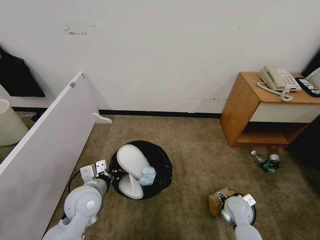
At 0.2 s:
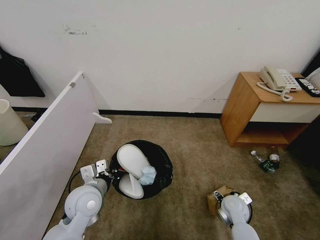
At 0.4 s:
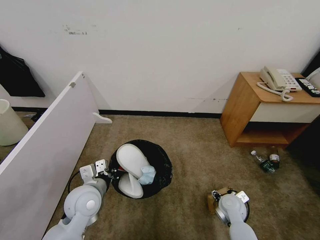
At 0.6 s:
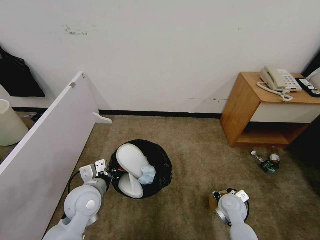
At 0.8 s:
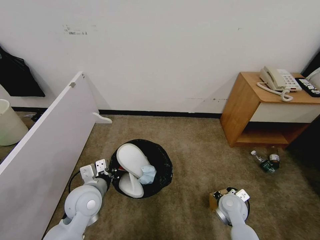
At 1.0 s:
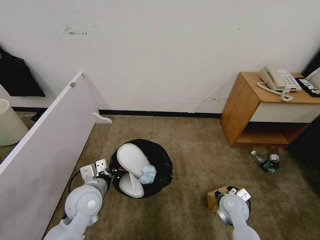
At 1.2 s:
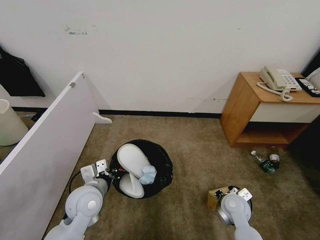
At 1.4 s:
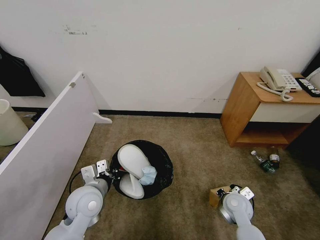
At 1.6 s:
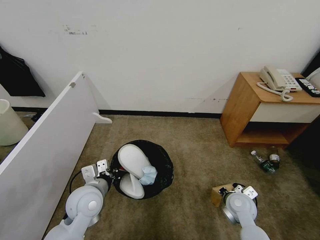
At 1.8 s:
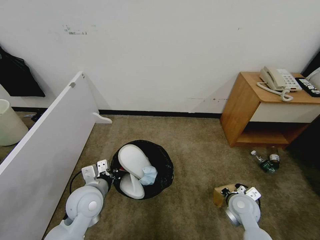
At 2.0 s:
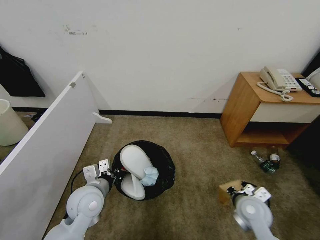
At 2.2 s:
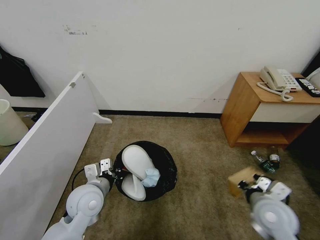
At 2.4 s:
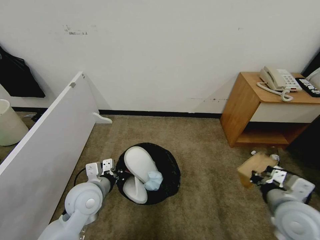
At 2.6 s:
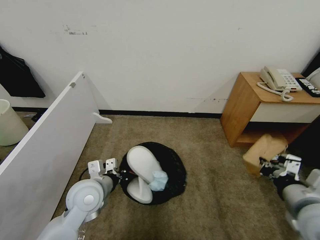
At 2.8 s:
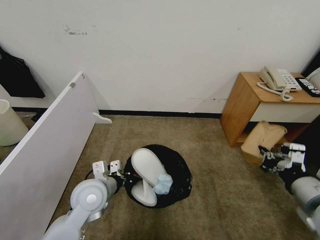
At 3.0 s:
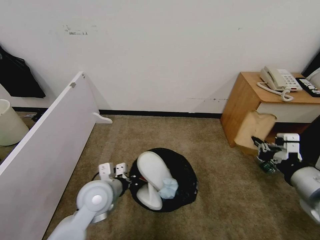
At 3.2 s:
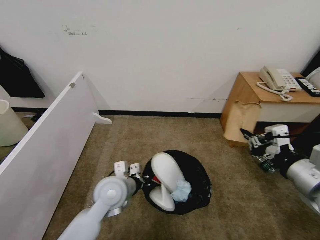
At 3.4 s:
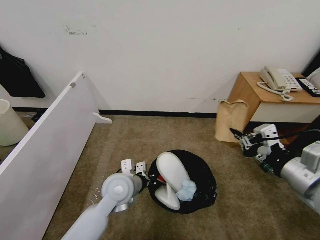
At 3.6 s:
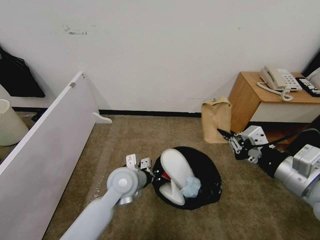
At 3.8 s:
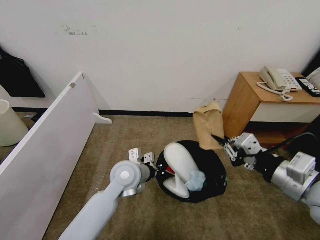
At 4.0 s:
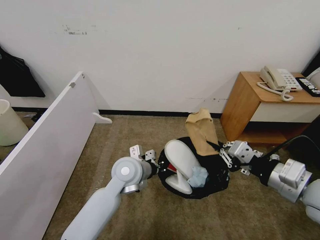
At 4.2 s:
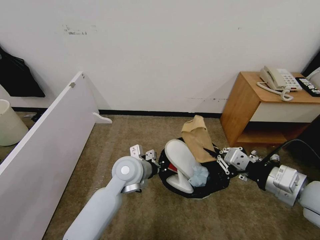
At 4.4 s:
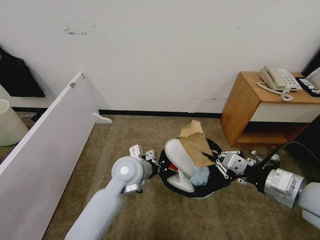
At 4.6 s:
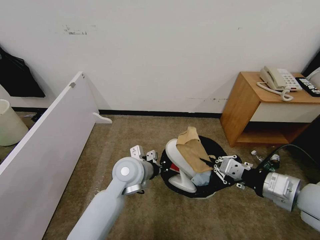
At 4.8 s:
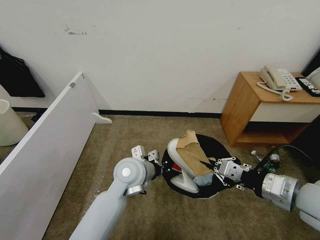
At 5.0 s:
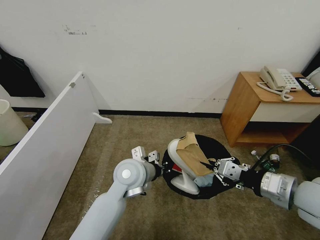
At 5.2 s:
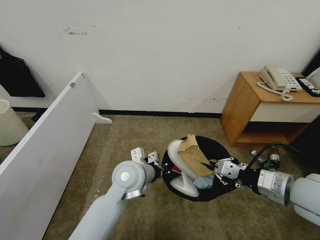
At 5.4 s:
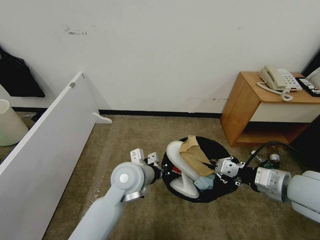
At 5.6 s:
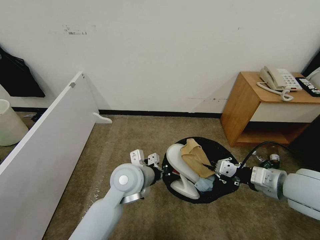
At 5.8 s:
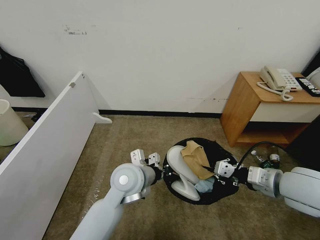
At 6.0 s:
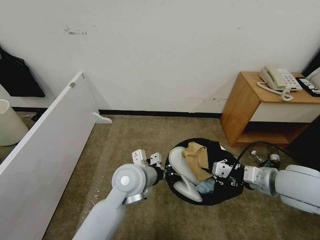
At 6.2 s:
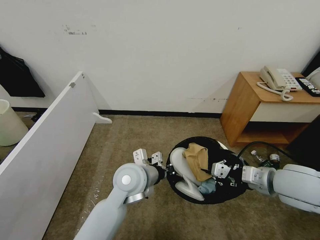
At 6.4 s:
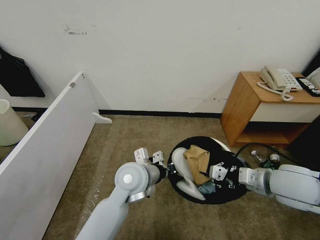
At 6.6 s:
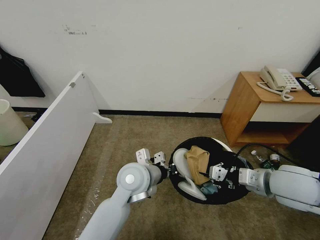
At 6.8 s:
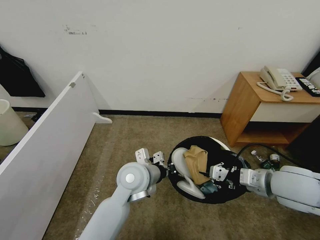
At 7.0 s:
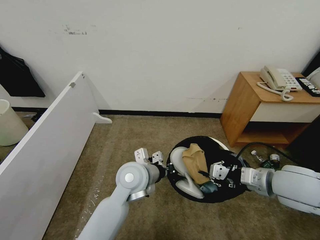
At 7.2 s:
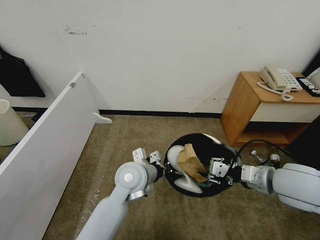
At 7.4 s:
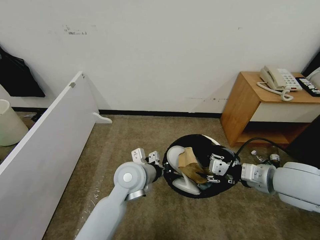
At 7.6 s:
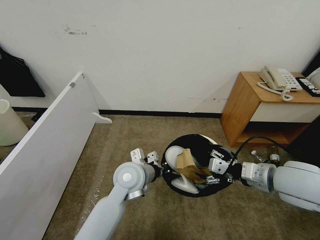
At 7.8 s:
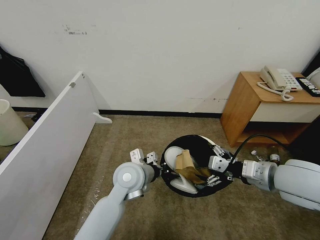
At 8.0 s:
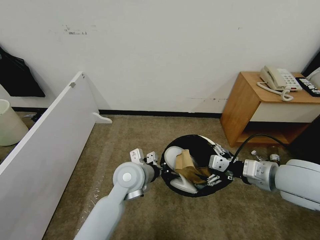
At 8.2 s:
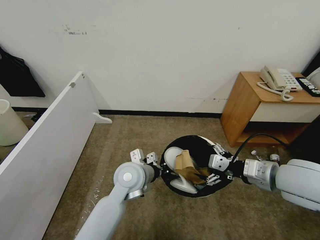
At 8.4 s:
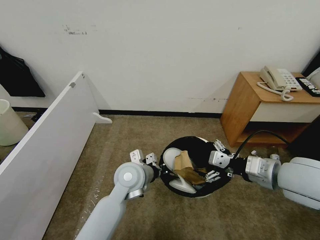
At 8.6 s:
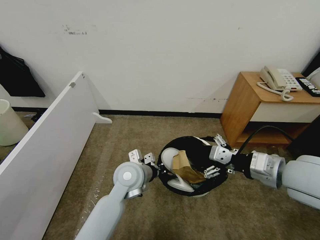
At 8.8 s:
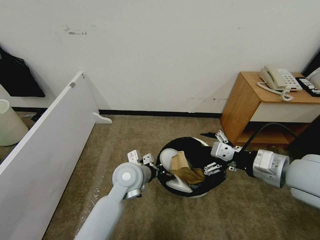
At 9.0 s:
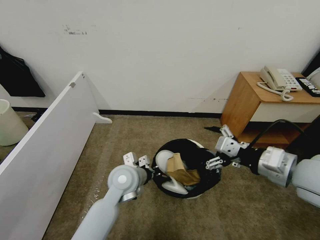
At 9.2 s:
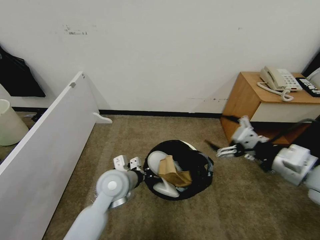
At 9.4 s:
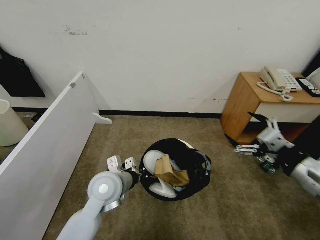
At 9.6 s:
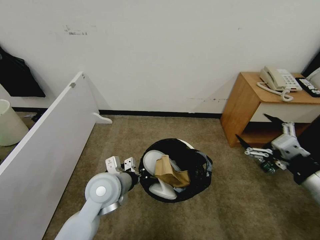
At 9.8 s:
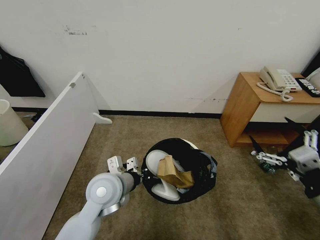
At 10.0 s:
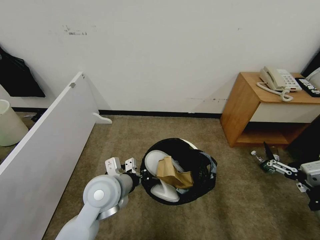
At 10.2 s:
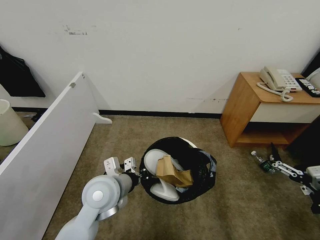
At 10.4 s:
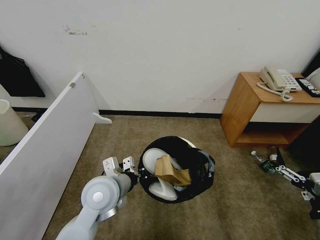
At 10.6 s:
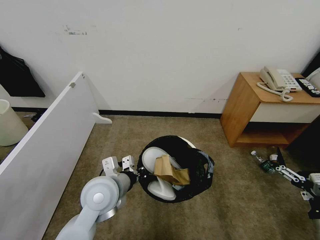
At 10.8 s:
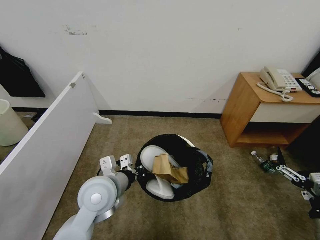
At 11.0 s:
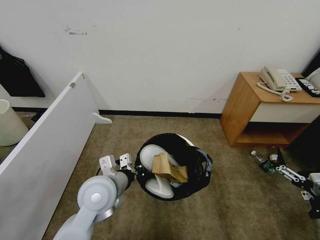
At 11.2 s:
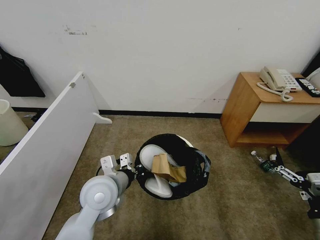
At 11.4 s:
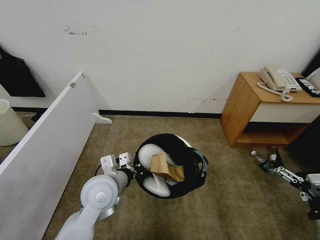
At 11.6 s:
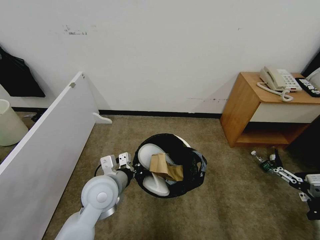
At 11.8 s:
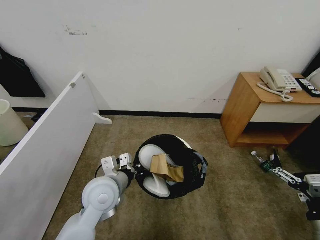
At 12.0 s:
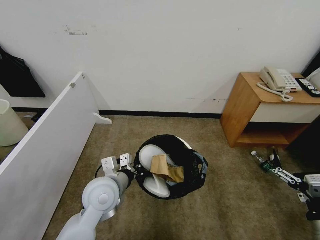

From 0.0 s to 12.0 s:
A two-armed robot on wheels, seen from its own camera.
Task of the whole recording: Pick up the trash bin, then pick up the garbage from the floor and place it into the trash bin.
From 0.0 s to 1.6 s: The right gripper heads upward, covering some 5 cm, and closes up.
From 1.6 s to 3.0 s: The right gripper travels upward by approximately 25 cm.
From 3.0 s to 4.4 s: The left gripper moves to the right and forward, some 10 cm.
From 4.4 s to 6.0 s: The right gripper shifts some 5 cm forward.
From 6.0 s to 7.6 s: The right gripper opens its fingers.
From 7.6 s to 9.0 s: The right gripper is displaced upward by approximately 5 cm.
From 9.0 s to 10.4 s: The right gripper goes approximately 20 cm downward, backward and to the right; the left gripper goes about 5 cm backward.
From 10.4 s to 12.0 s: The grippers move only a little.

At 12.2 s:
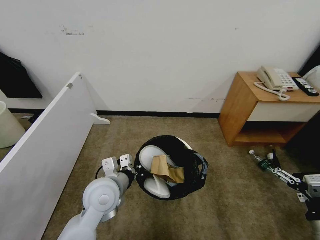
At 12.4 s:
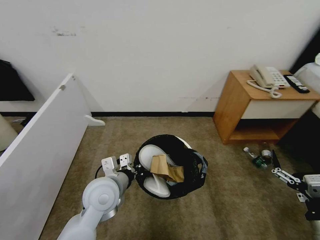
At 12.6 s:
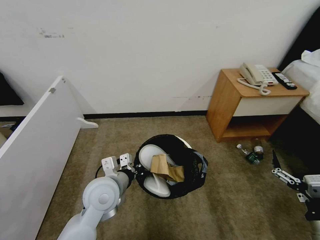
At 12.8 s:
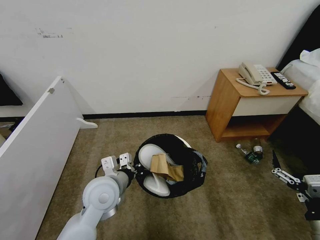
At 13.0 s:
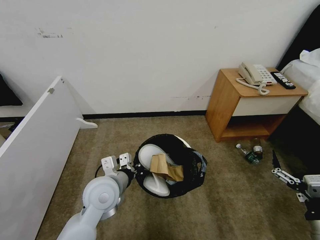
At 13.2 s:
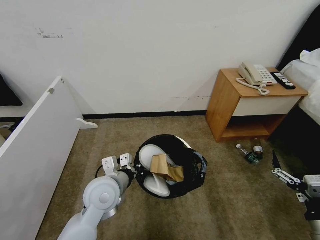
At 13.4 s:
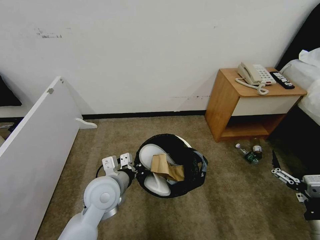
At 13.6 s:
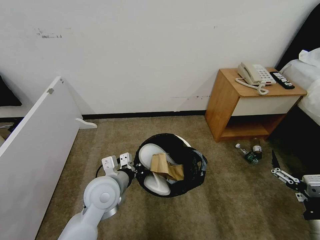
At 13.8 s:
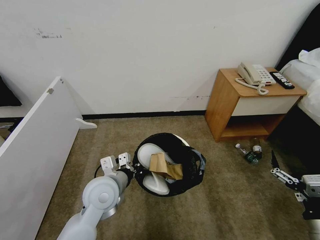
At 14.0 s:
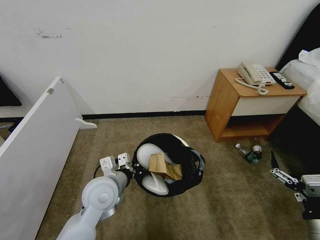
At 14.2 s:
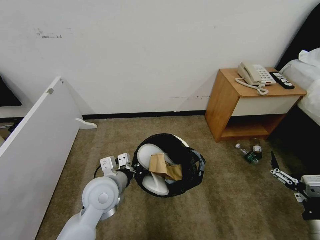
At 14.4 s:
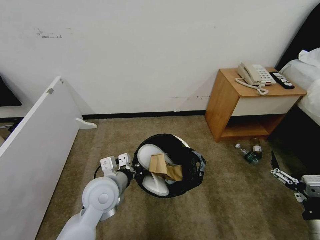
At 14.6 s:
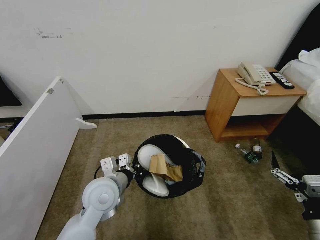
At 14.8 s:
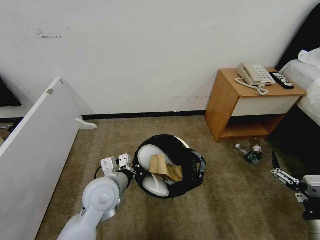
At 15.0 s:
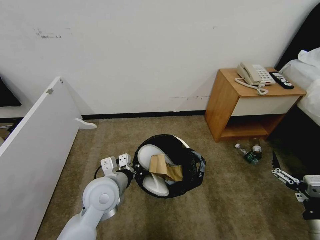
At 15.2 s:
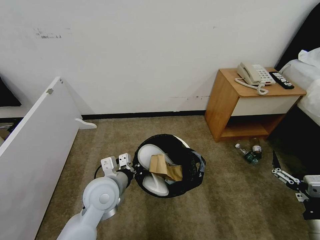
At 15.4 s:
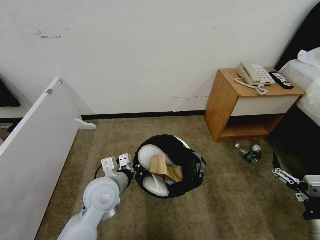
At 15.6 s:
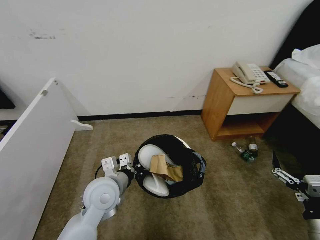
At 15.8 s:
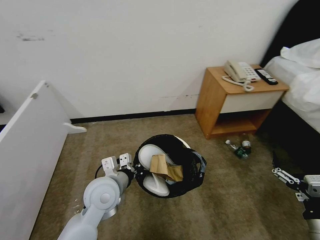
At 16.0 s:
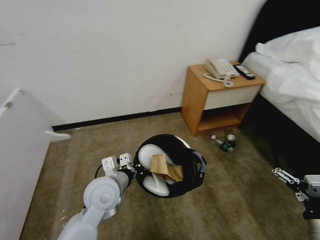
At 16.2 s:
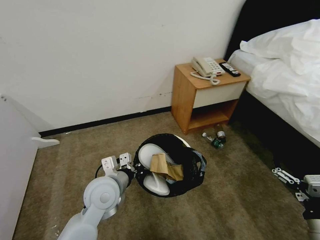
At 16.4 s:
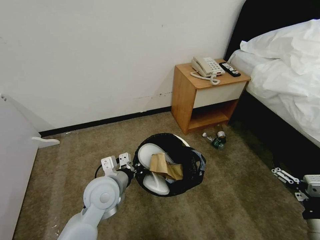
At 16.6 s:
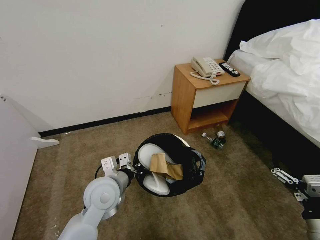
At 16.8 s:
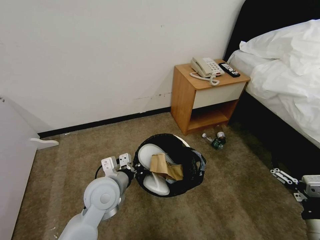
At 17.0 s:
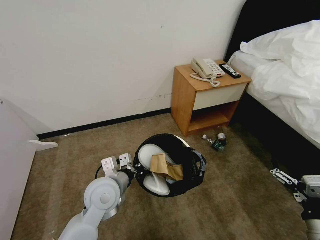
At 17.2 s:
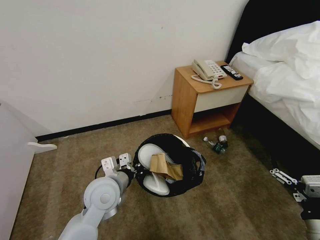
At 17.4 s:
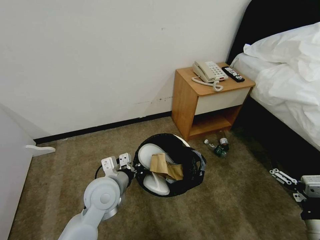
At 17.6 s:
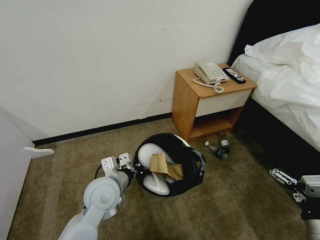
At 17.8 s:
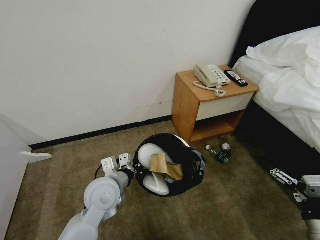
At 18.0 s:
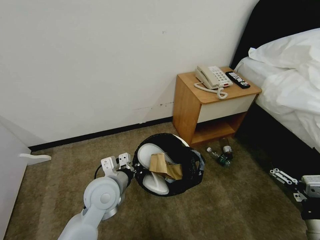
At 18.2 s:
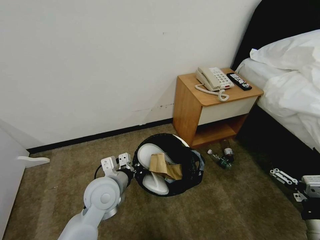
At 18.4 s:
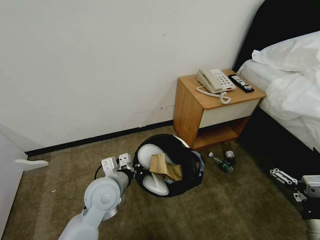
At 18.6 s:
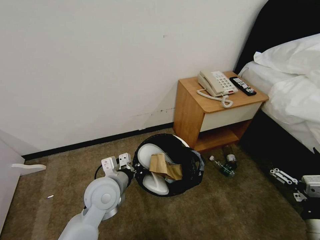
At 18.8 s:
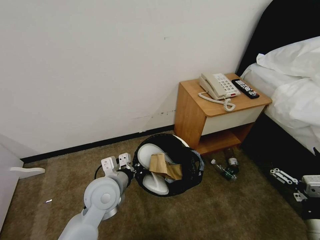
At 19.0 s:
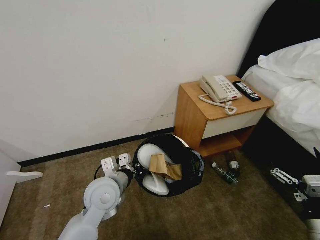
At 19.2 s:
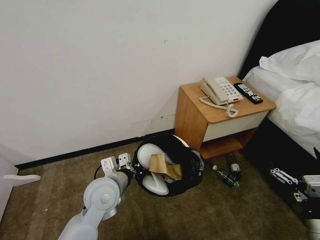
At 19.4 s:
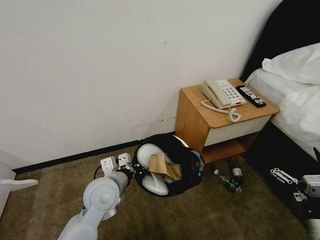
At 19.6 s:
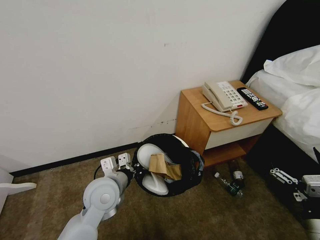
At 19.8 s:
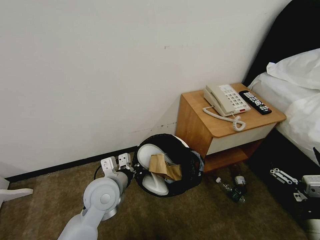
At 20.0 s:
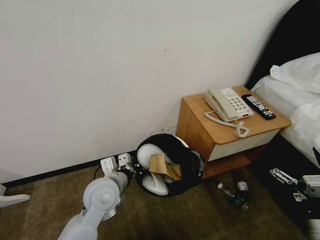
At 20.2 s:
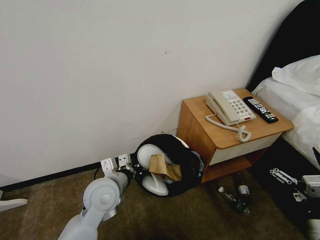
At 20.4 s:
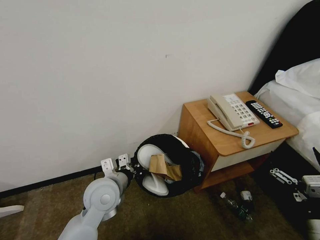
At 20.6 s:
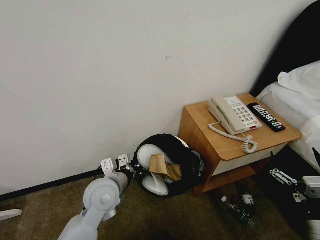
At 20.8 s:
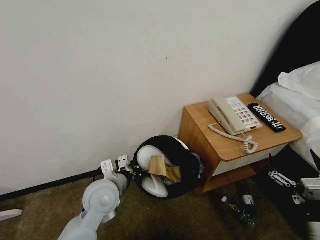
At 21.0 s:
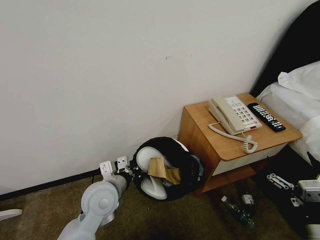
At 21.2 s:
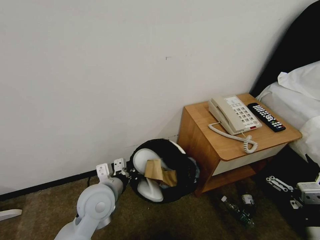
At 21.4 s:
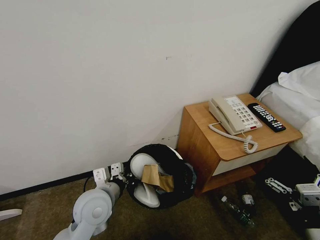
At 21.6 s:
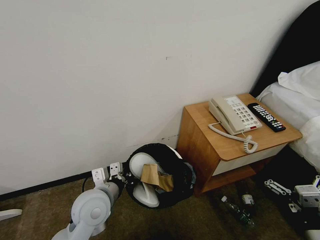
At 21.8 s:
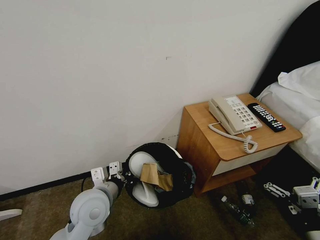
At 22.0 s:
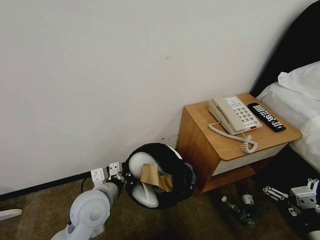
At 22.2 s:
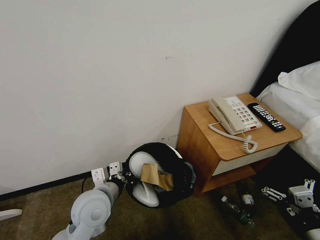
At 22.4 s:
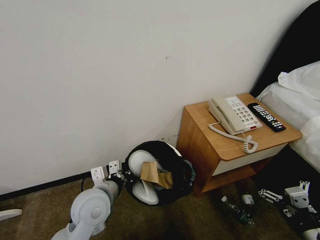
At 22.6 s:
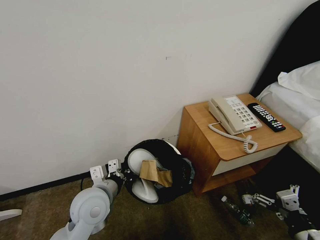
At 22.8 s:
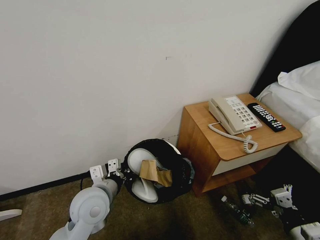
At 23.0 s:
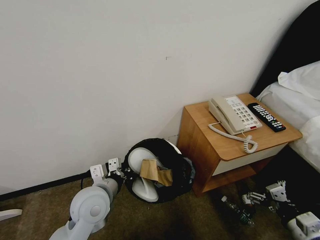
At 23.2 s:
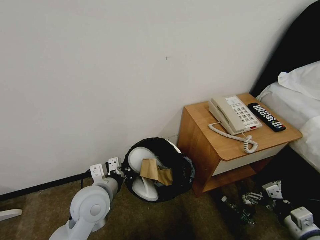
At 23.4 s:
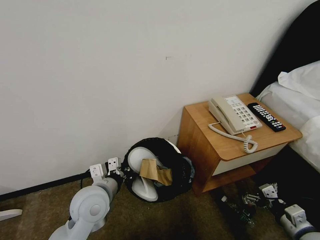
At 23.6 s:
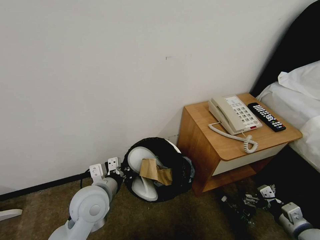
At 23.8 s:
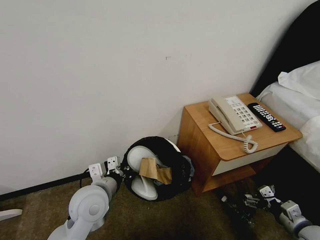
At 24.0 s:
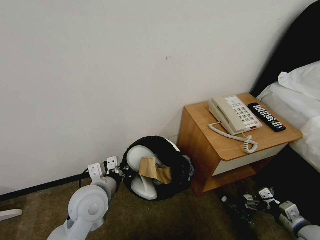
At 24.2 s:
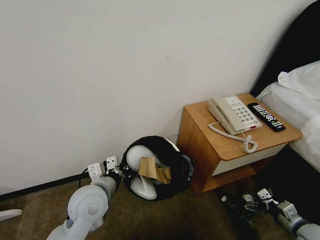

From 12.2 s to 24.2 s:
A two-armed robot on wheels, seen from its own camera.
Task of the whole recording: Pick up the trash bin, then pick up the garbage from the floor and place it into the trash bin.
From 13.8 s to 15.2 s: Both grippers stay put.
From 22.6 s to 24.2 s: The right gripper travels forward, downward and to the right by approximately 15 cm.
